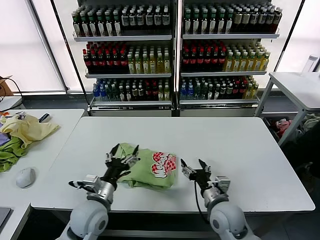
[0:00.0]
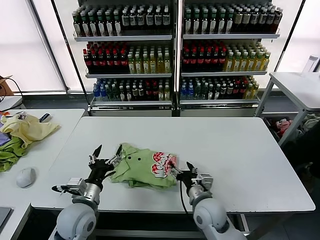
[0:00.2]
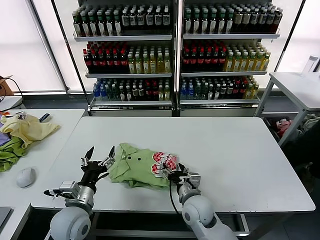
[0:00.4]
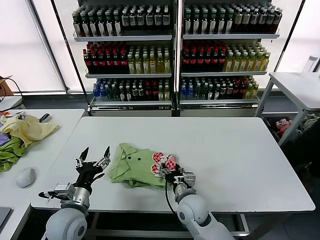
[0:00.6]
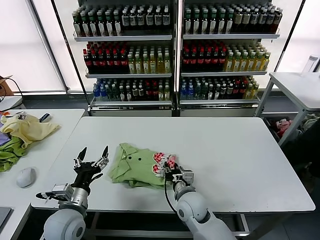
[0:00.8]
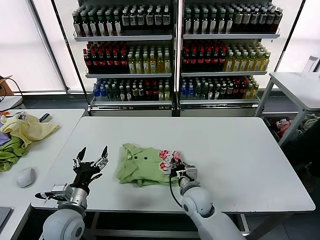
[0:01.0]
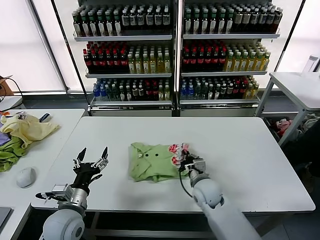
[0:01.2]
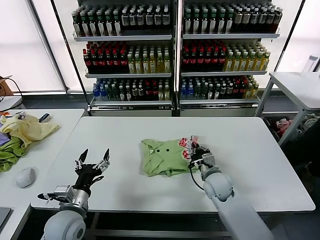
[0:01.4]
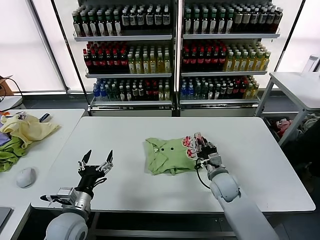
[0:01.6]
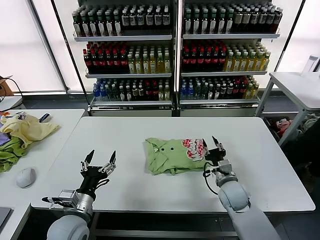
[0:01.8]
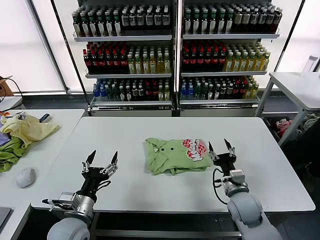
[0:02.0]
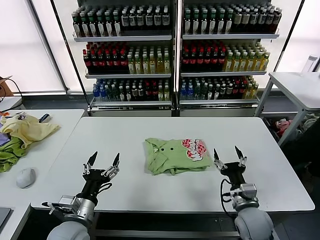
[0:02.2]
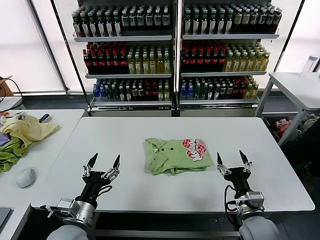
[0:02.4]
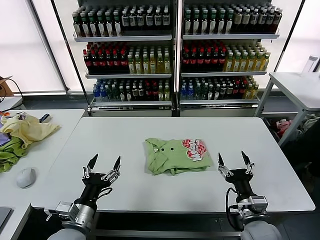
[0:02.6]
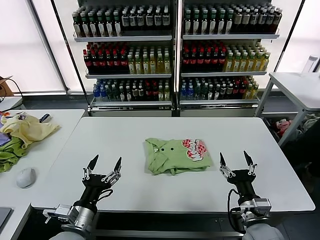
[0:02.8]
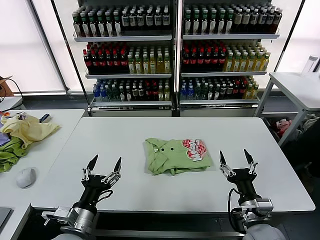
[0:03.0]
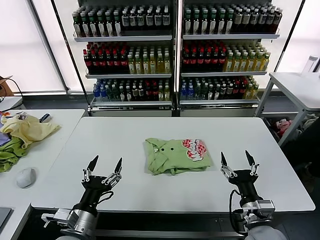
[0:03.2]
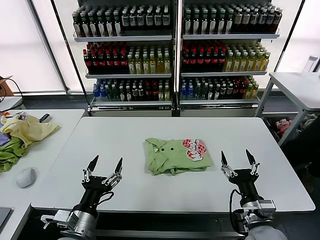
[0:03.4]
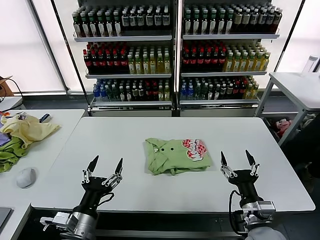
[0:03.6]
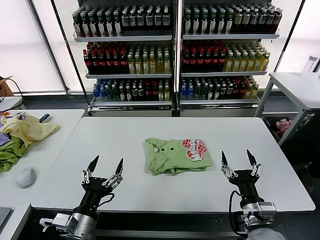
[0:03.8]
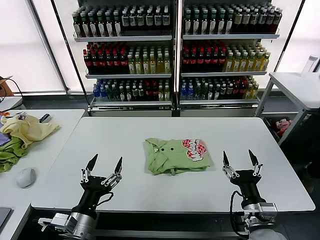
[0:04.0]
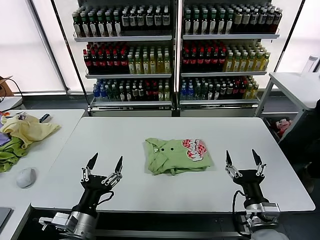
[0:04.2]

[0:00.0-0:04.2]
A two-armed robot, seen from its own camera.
Task of the whole recording: fold and organize the clothes.
Step, 0:00.0 to 0:01.6: Drag the clothes to the center of the table.
0:00.0 to 0:01.4: The left gripper is displaced to the left by some 10 cm, while the right gripper travels forward by approximately 10 cm, and closes up.
0:01.4 to 0:02.8: The left gripper shifts about 5 cm backward, while the right gripper goes approximately 20 cm backward and to the right, and opens.
0:02.8 to 0:04.2: The grippers move only a little.
